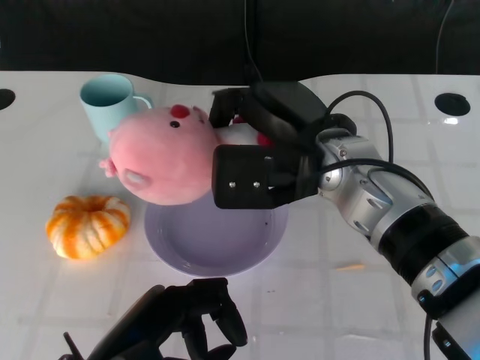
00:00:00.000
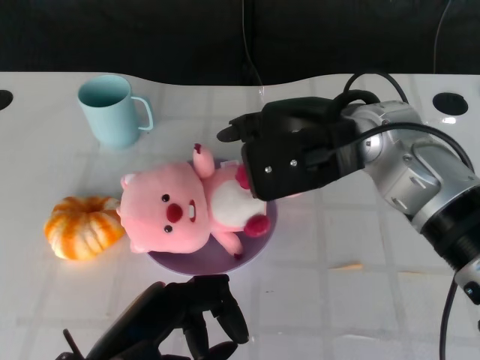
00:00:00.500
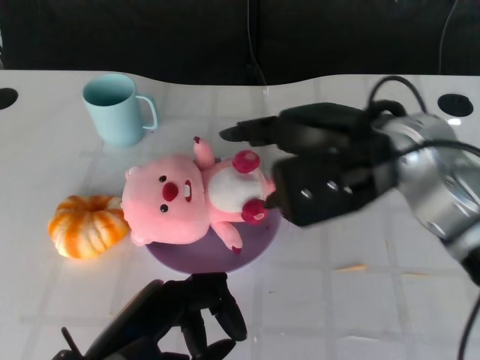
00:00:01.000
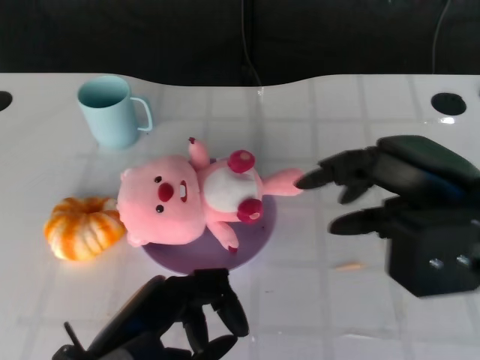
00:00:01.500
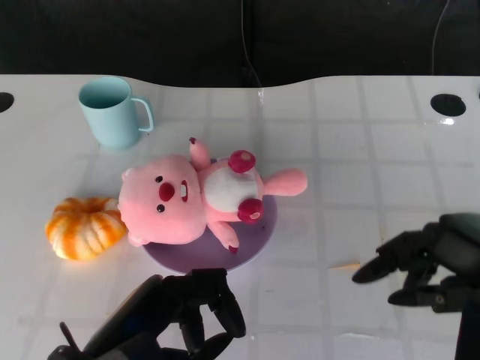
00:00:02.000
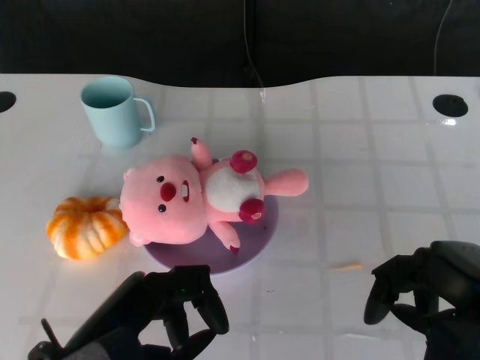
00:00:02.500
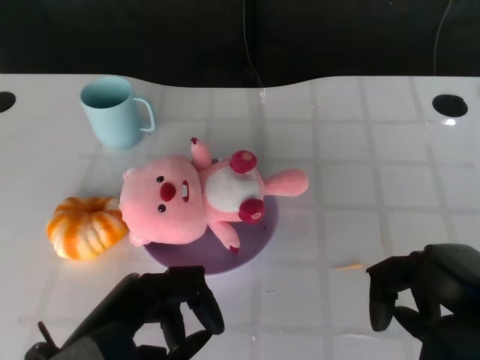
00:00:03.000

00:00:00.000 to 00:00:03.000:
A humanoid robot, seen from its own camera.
Task of the whole recording: Pick up the doll on the other side of the plate and place it into the plate.
00:00:00.000 to 00:00:01.500: The right hand heads to the right and backward, covering about 15 cm.
00:00:01.500 to 00:00:03.000: The right hand shifts about 10 cm backward and downward.
